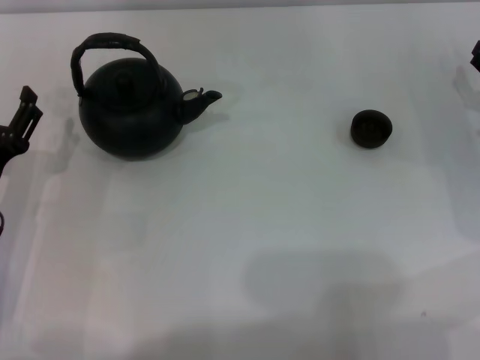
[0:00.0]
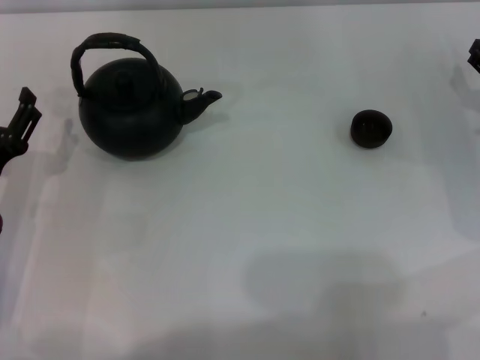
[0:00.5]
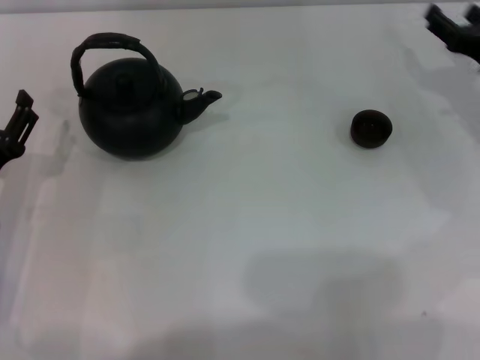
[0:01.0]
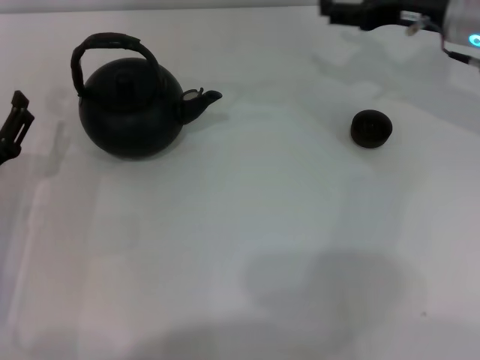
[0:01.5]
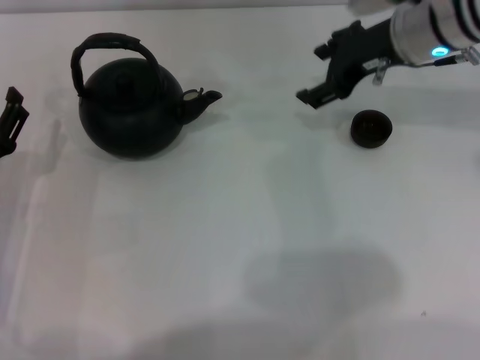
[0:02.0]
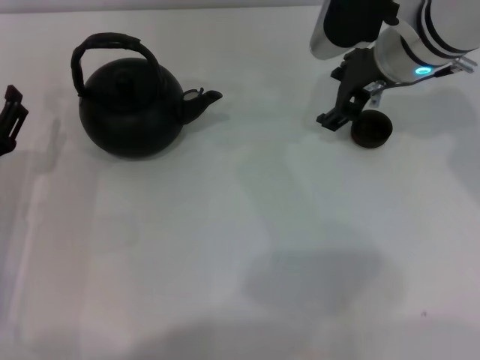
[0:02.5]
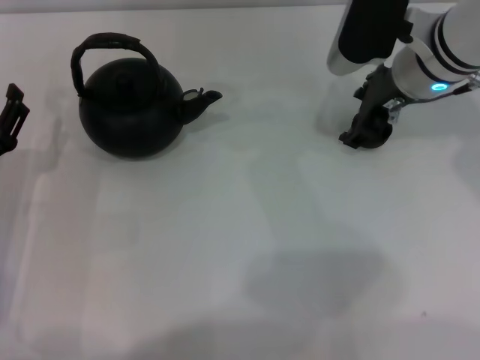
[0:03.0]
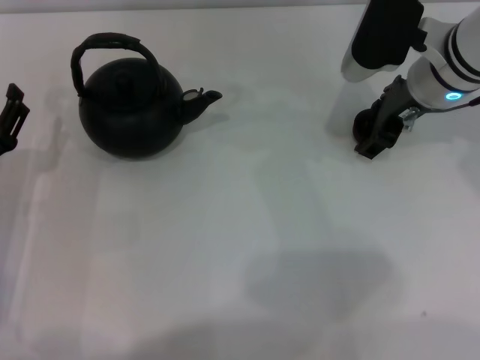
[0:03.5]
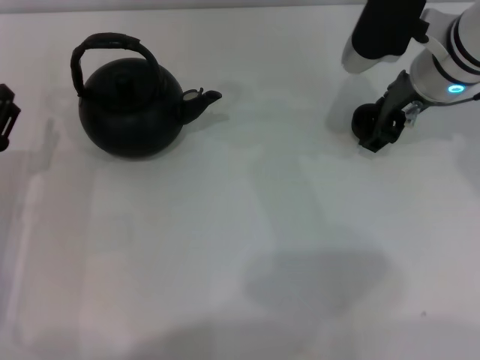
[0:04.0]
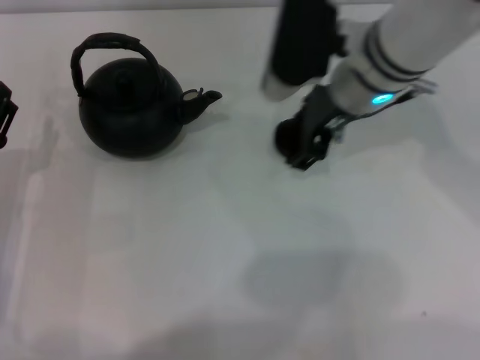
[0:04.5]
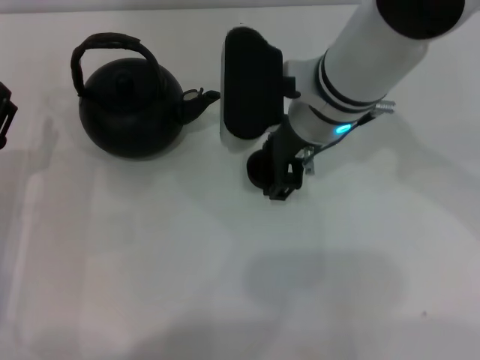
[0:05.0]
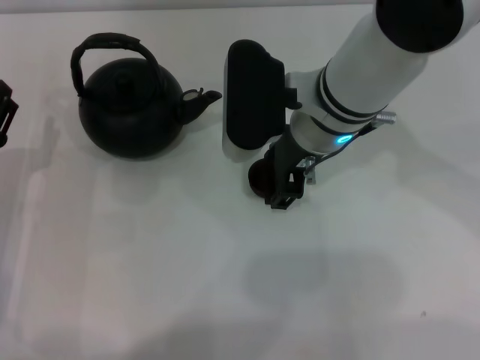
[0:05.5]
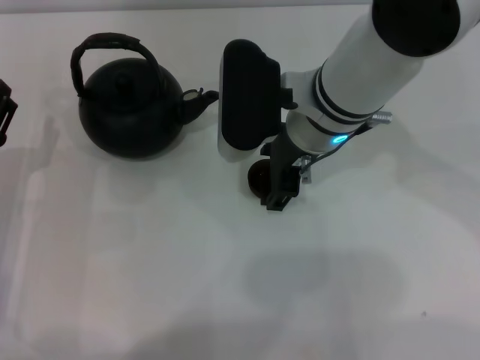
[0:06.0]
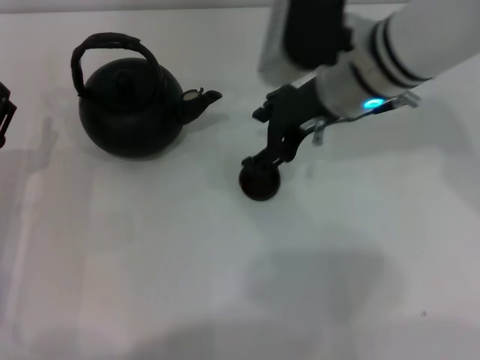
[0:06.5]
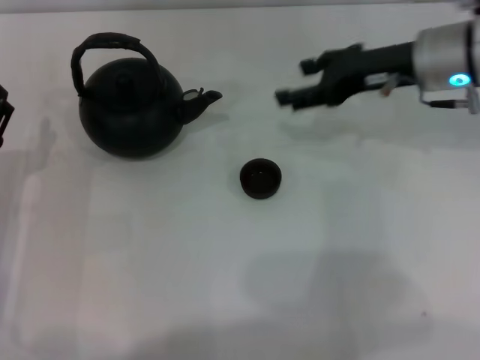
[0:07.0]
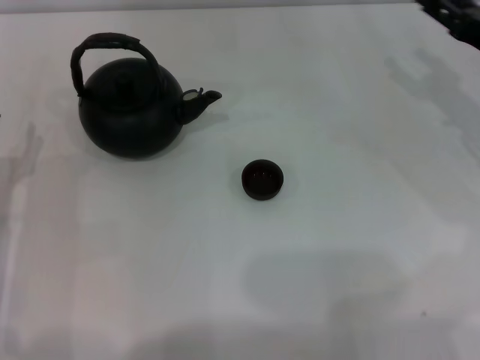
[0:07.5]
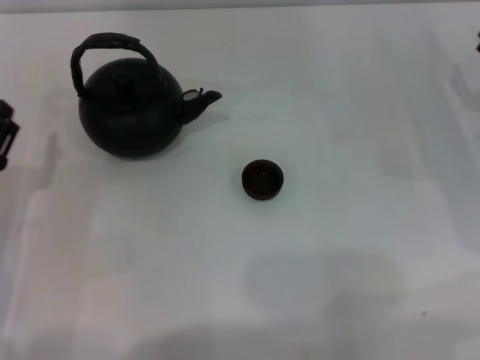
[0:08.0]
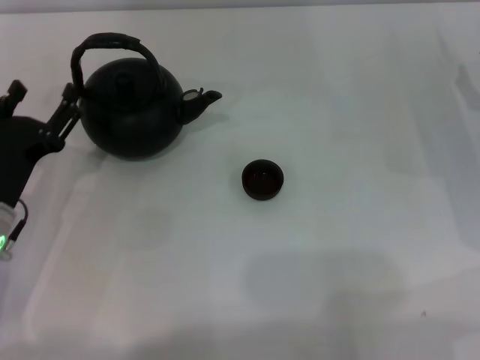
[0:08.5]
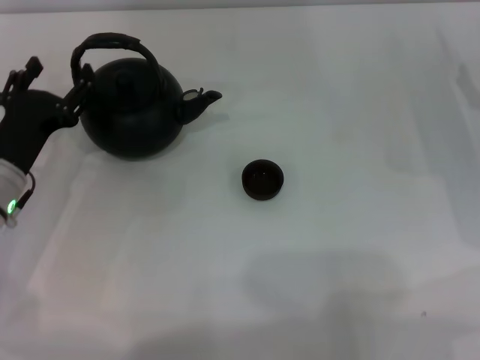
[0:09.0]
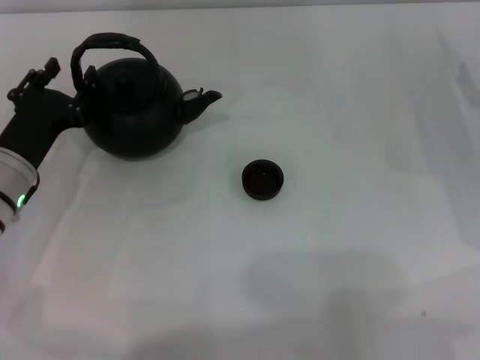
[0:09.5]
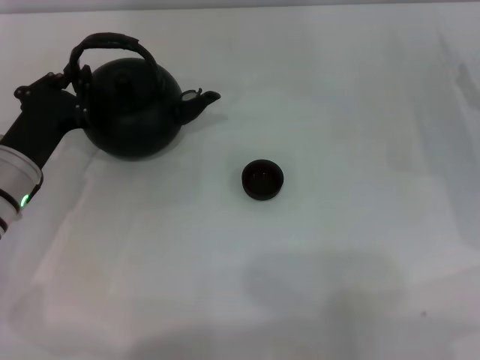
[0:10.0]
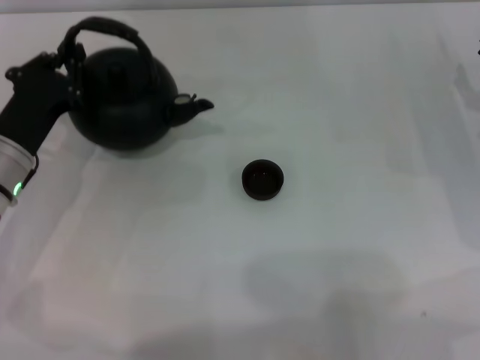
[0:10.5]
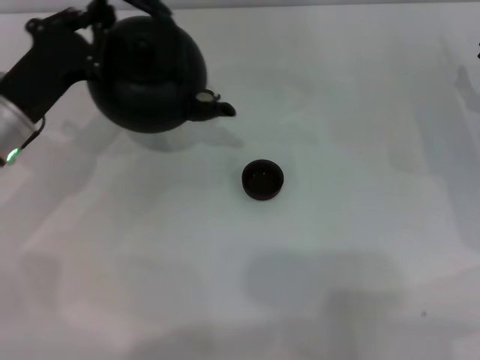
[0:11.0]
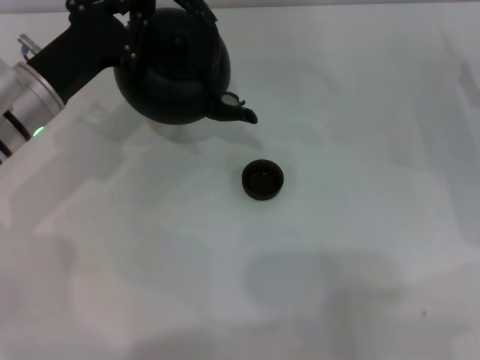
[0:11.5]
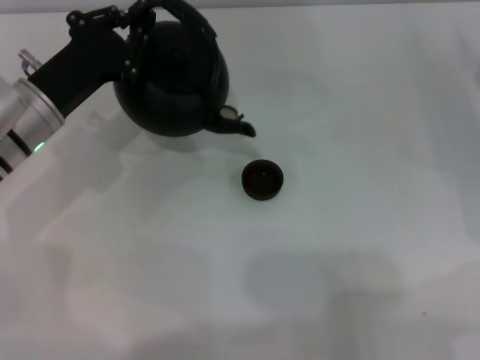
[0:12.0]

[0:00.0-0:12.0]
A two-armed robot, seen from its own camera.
Task of the whole recording: Grasp the handle of the teapot with one hand and pour tea into the teacup.
Step, 0:00.0 to 0:04.0: Pick up the teacup with the right gripper.
Step, 0:04.5 to 0:06.0: Place the teacup in the center of view with the right gripper.
Step, 0:06.5 to 0:11.5: Pick up the teapot with the left gripper.
0:00.0 to 0:02.0: The right gripper travels to the left, upward and forward by some 20 cm.
0:04.0 to 0:06.0: The right gripper moves to the left, roughly 10 cm, and opens up.
0:06.0 to 0:08.0: The right gripper moves to the right, roughly 25 cm.
0:08.0 to 0:10.0: The left gripper moves forward, roughly 10 cm, and closes up.
0:10.0 to 0:12.0: The left gripper moves upward, about 5 cm.

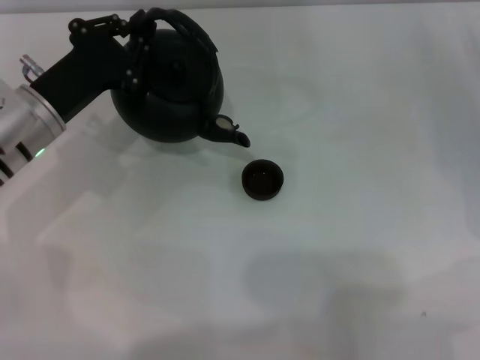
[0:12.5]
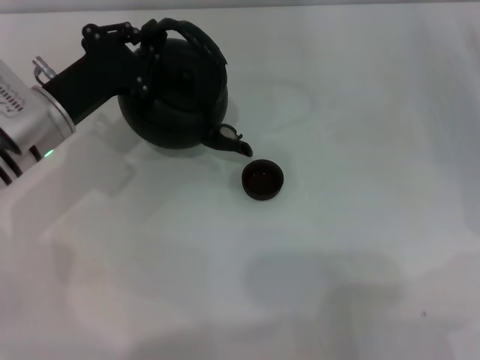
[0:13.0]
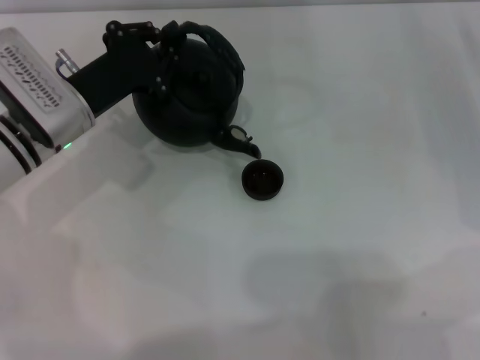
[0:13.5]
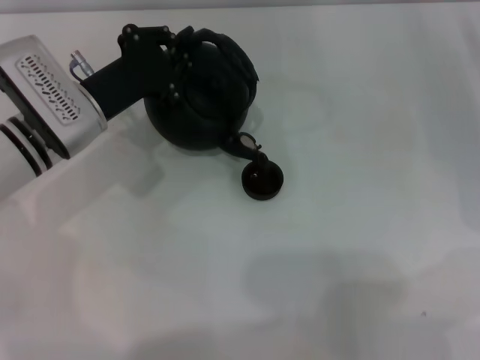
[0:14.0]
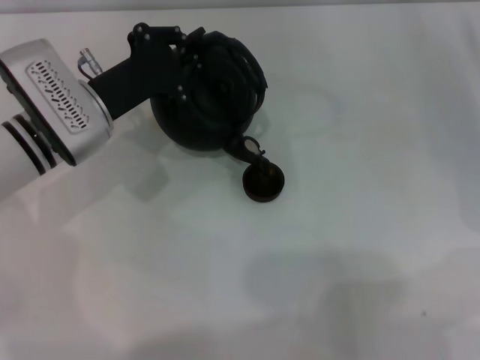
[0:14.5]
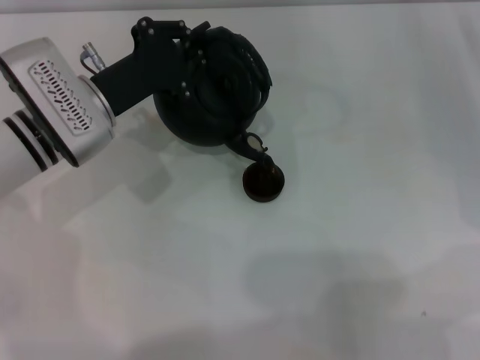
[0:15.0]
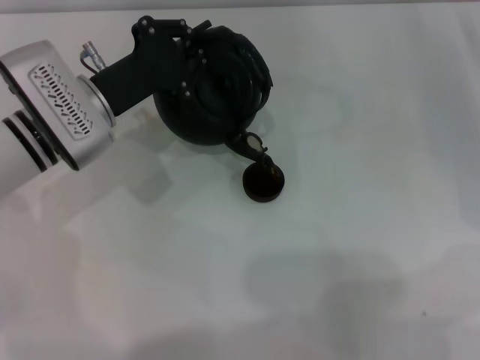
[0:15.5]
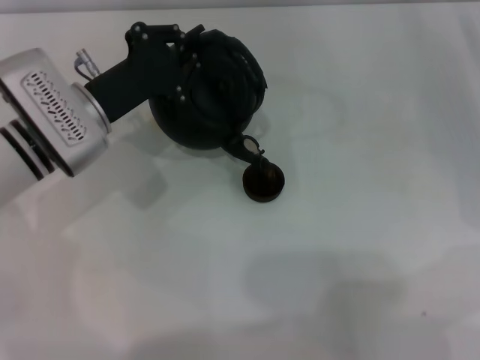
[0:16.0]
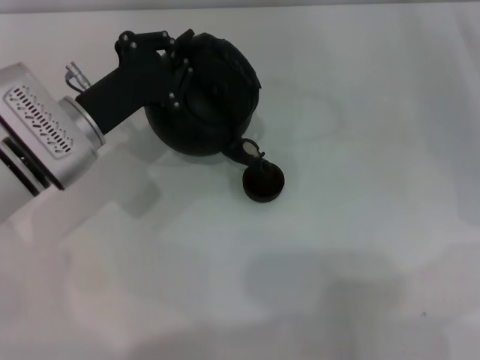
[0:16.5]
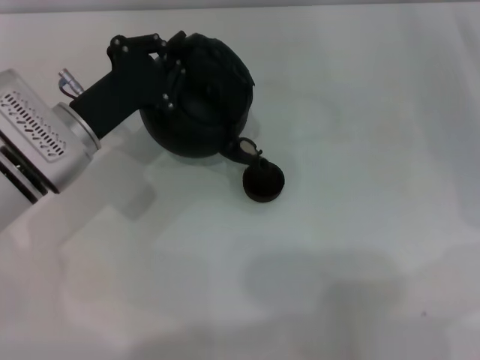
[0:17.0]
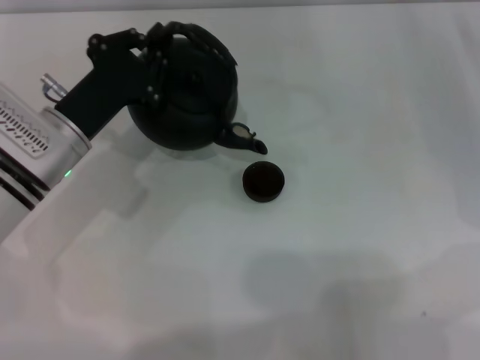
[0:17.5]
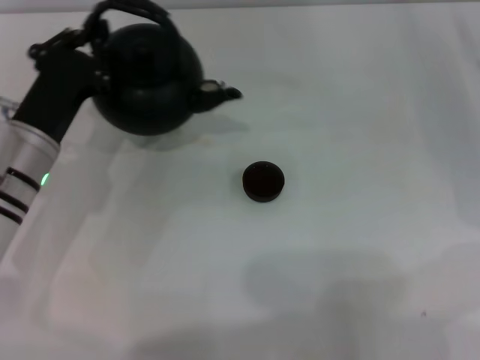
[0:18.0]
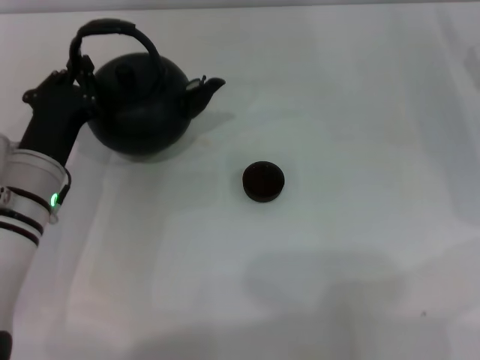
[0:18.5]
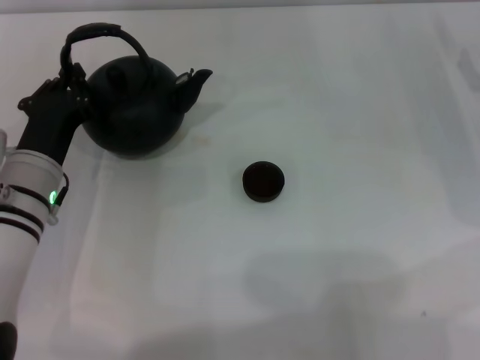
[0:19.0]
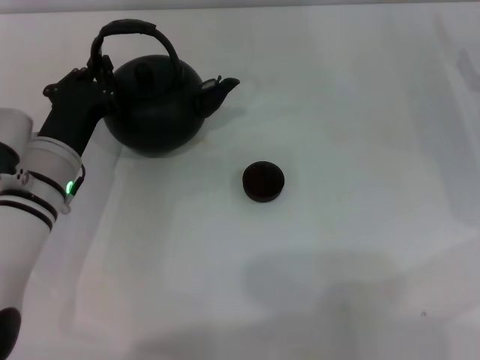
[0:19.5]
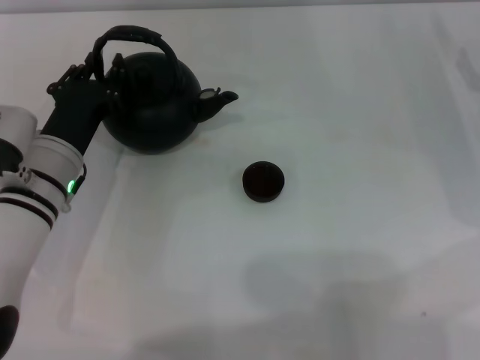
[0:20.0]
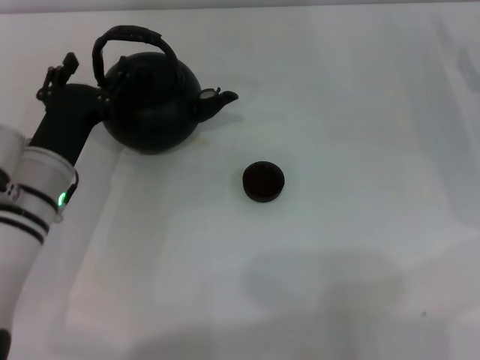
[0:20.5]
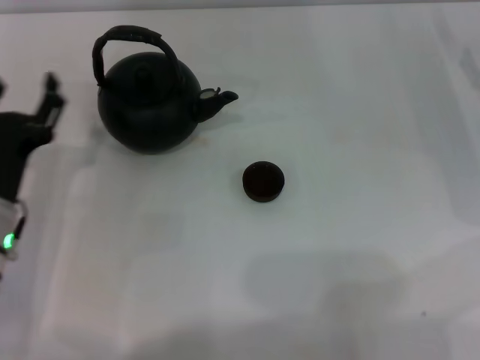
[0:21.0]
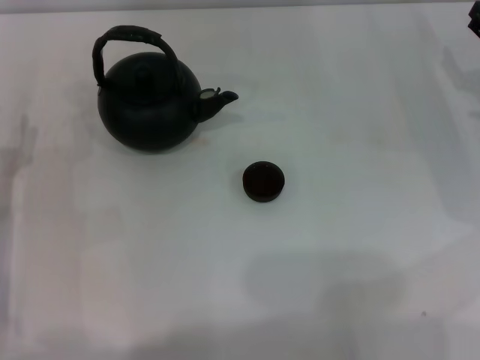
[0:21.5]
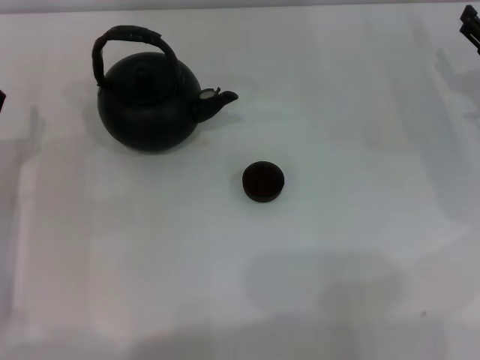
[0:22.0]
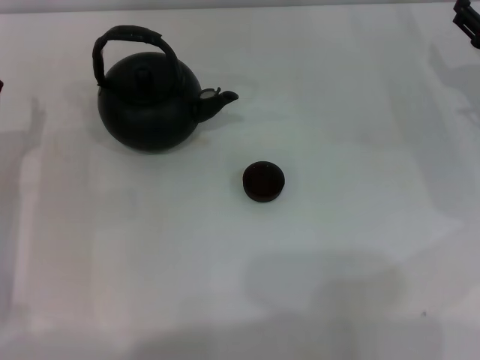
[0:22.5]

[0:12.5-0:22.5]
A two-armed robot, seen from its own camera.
Task of the whole recording: Grasp the handle of the teapot with one hand and pour tea into the teacup.
Step, 0:12.5 to 0:17.0: Pour tea into the teacup with the left gripper.
Step, 0:17.5 to 0:20.5: Put down the teapot with the left gripper.
0:12.5 to 0:14.5: There are only small adjustments of the grippers.
0:14.5 to 0:16.5: The grippers move only a little.
0:16.5 to 0:18.5: The left gripper moves roughly 5 cm.
0:18.5 to 0:20.5: The left gripper opens its fingers.
0:20.5 to 0:22.5: The left gripper is displaced to the left by roughly 10 cm.

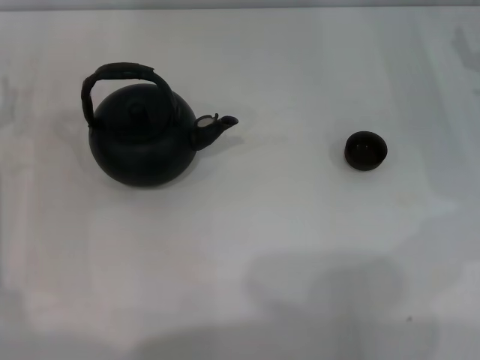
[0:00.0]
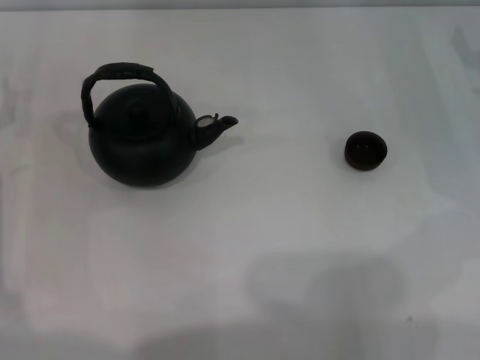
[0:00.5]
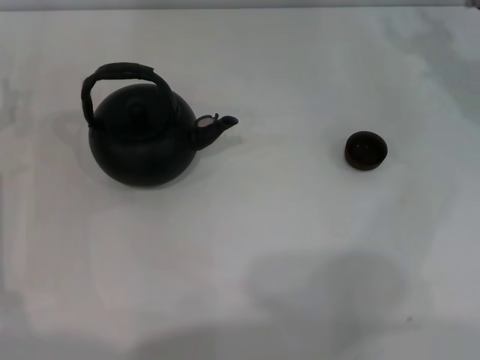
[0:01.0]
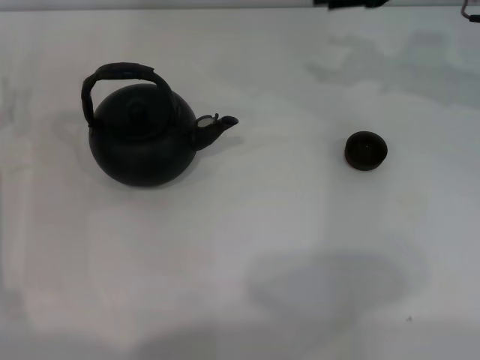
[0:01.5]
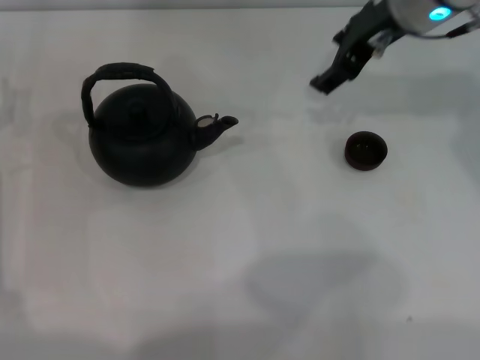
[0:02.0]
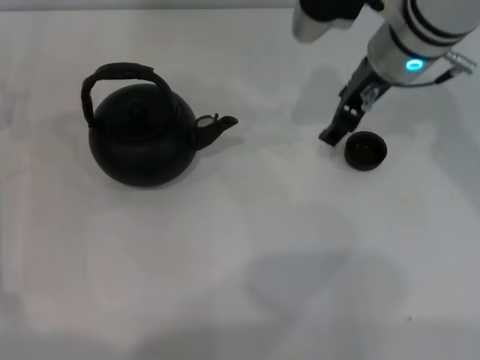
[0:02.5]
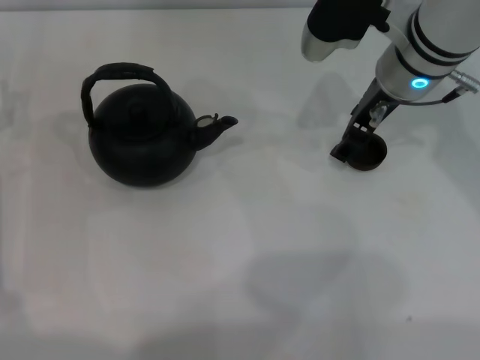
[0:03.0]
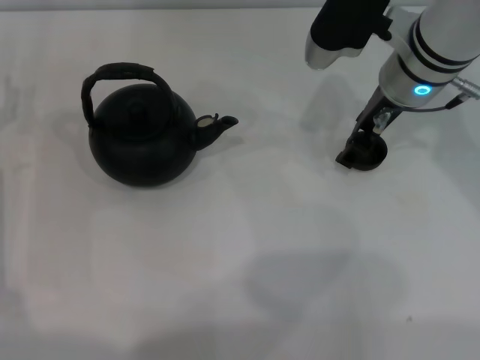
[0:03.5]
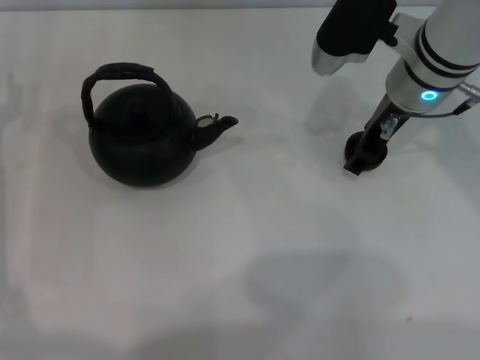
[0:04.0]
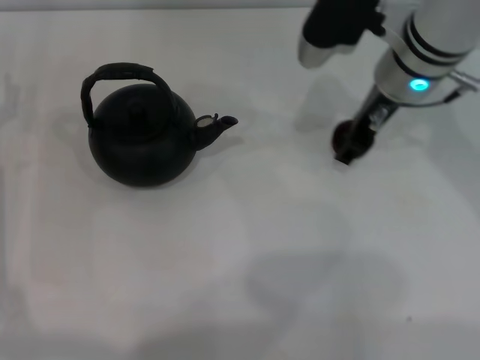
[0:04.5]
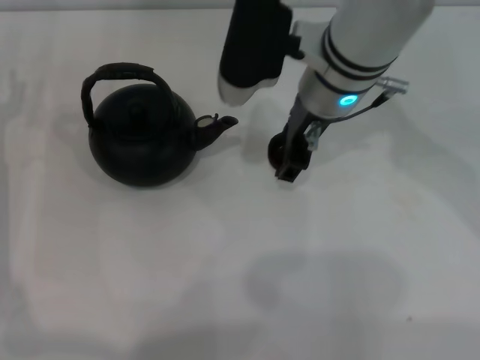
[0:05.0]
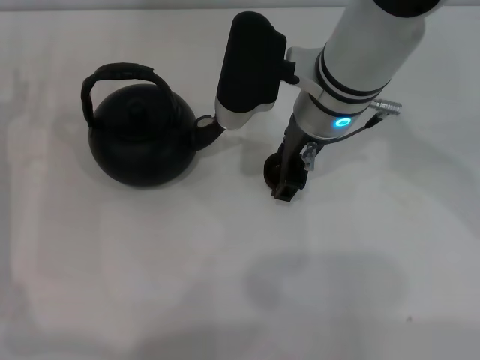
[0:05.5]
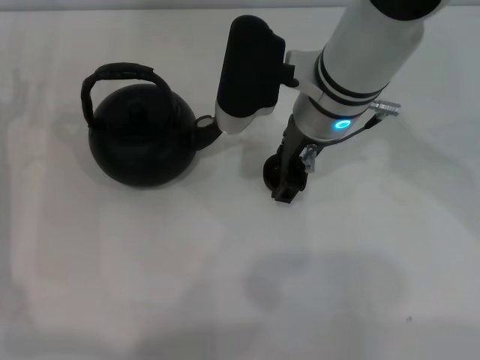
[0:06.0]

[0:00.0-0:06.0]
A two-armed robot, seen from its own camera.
Task of the whole recording: Grasp the handle of the teapot with one hand and pour tea into the teacup.
Step, 0:00.0 to 0:04.5: Pick up the teacup with the right gripper.
0:00.0 to 0:02.0: The right gripper heads to the left and upward, covering some 20 cm.
0:02.0 to 0:04.0: The right gripper goes about 5 cm downward.
0:04.0 to 0:06.0: The right gripper is displaced to the left by approximately 10 cm, and closes its fingers.
